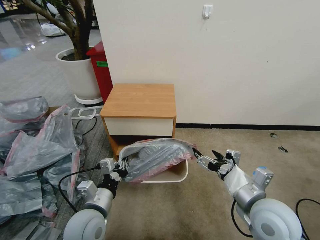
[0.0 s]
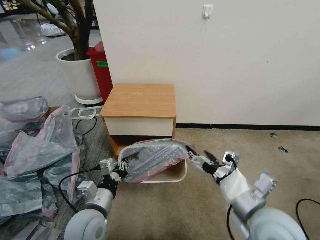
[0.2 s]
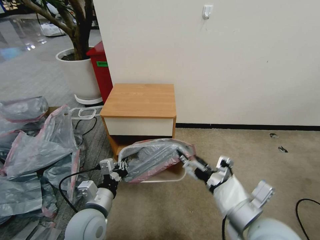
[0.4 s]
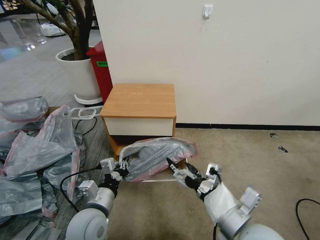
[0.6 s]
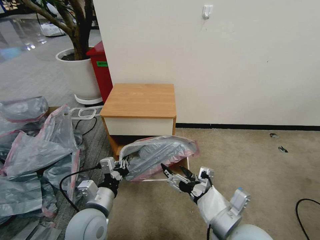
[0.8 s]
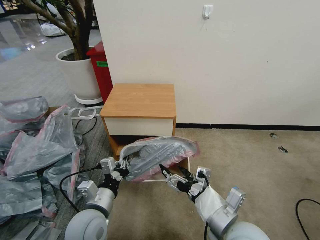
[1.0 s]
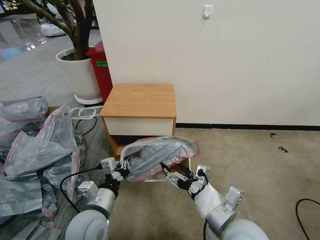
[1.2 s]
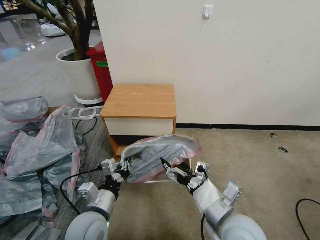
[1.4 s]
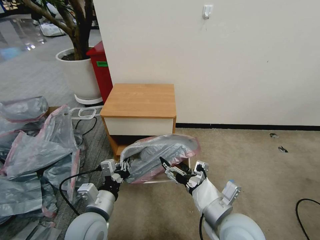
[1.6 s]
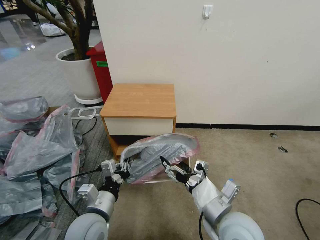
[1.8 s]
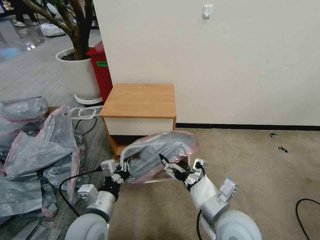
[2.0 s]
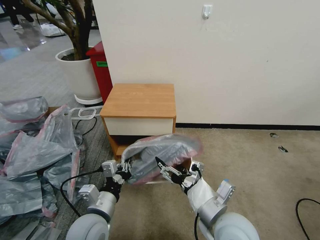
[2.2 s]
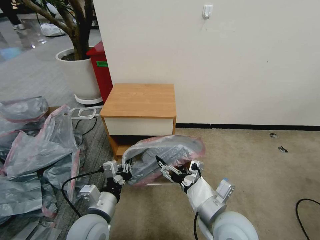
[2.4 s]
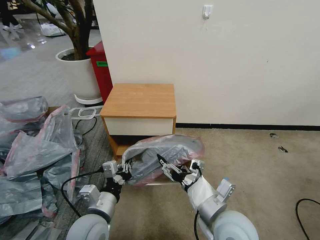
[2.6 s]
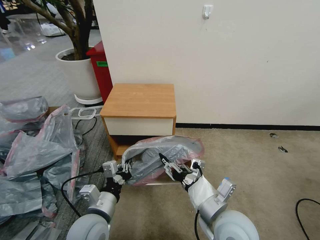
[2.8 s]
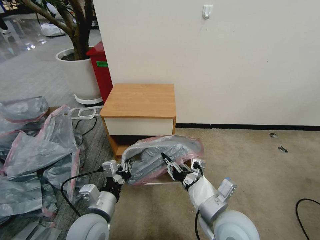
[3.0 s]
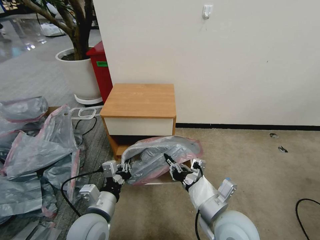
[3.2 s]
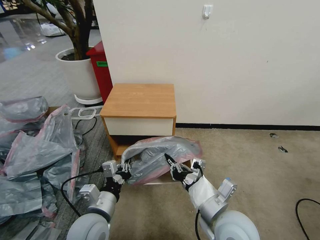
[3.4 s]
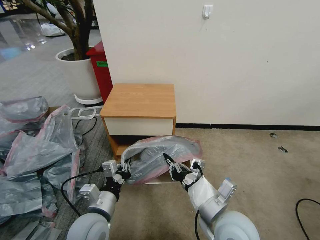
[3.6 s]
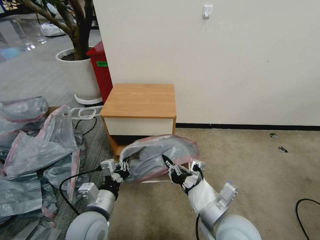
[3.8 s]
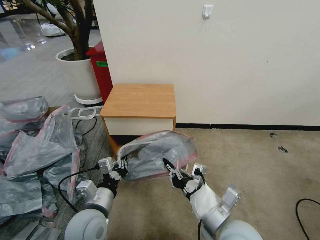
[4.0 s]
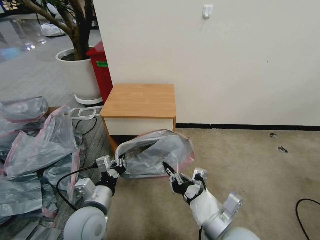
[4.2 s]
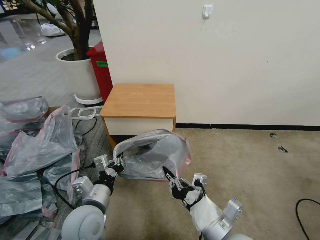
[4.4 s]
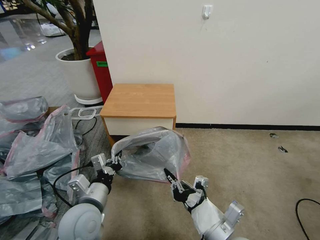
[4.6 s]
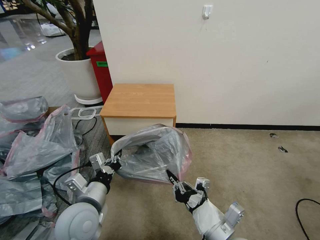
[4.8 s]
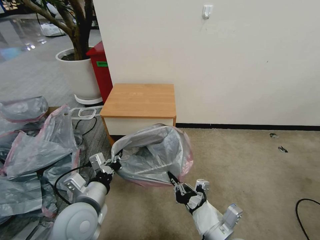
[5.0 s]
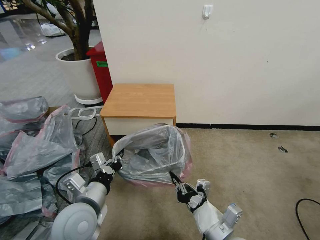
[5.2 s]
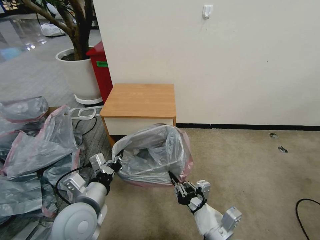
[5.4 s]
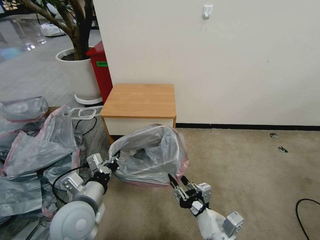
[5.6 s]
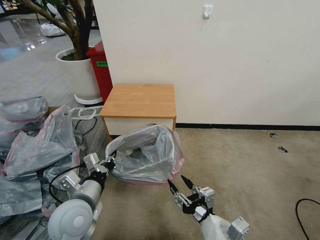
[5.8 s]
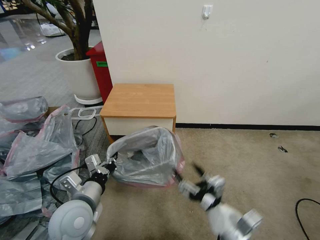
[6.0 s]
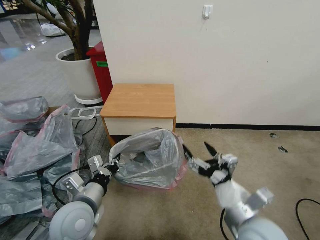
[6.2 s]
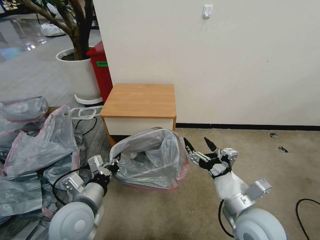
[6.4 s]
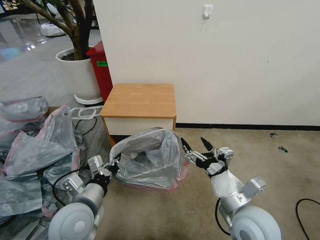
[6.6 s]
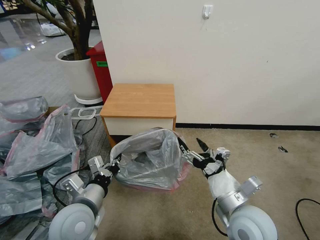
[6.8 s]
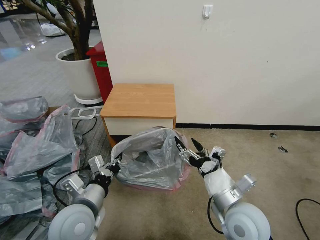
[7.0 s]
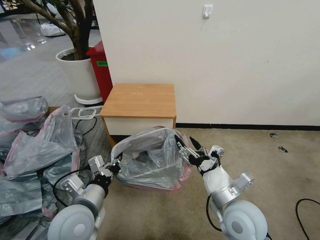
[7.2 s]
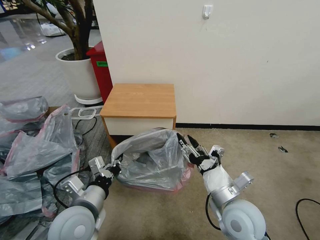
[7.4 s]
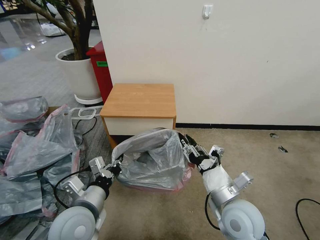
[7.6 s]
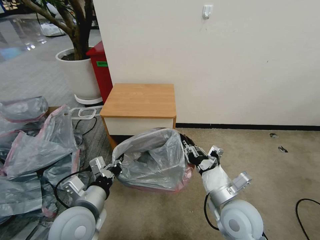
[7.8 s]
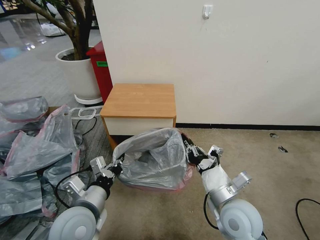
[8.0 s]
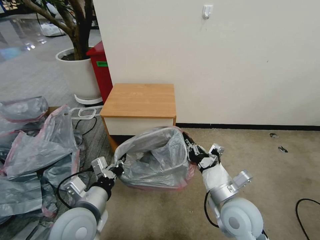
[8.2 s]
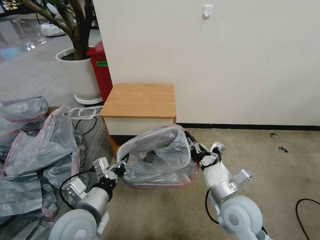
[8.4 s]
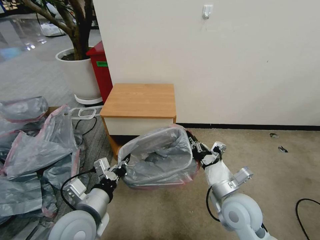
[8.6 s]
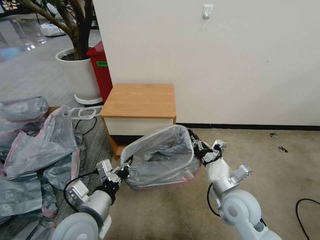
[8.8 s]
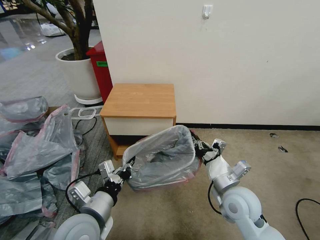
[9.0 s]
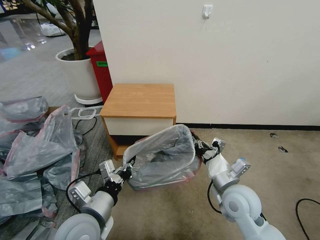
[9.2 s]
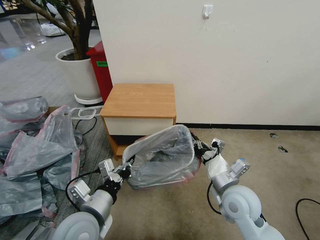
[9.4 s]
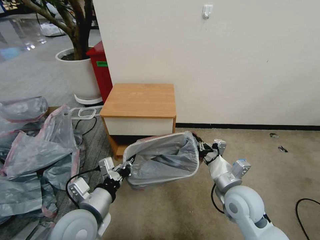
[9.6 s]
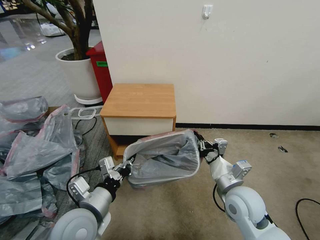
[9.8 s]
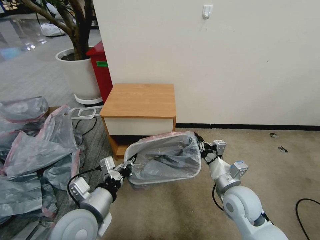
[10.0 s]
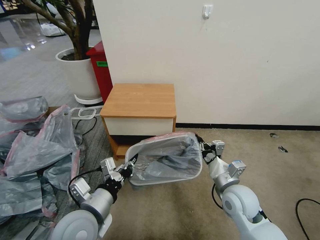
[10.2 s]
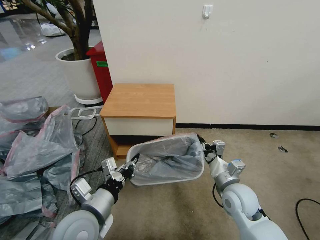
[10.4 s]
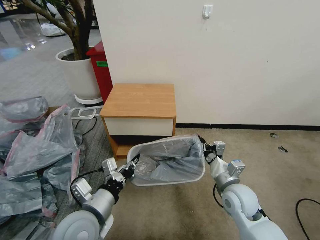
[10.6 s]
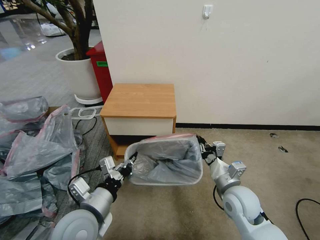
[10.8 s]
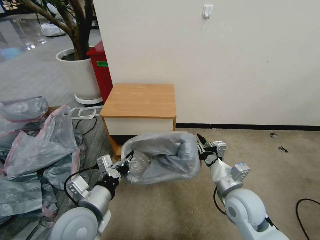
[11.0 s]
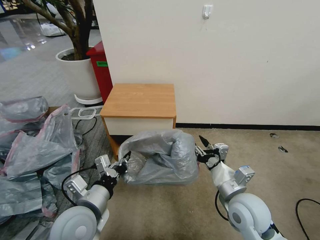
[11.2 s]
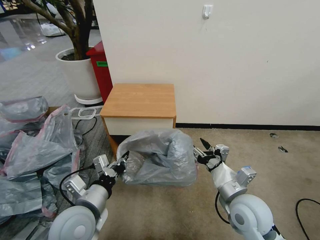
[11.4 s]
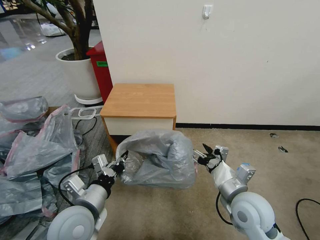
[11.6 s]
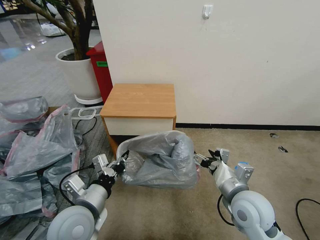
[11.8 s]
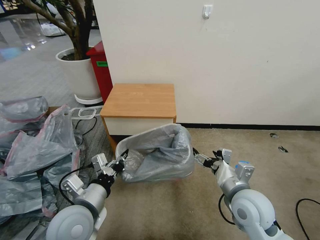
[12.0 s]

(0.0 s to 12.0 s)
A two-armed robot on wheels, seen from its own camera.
Task of the whole recording: Pick up the garbage bag from the table and place it over the trash can.
0.0 s - 1.6 s: The right gripper moves to the left, roughly 10 cm.
1.6 s - 3.0 s: The right gripper closes up.
3.0 s - 4.4 s: The grippers move only a little.
4.4 s - 6.0 s: The right gripper opens its fingers.
6.0 s - 7.6 s: The right gripper moves forward, roughly 10 cm, and closes.
7.6 s - 9.0 s: The right gripper closes its fingers.
9.0 s - 10.4 s: There are only small adjustments of the grippers.
10.4 s - 12.0 s: The right gripper is displaced upward by roughly 5 cm, and opens.

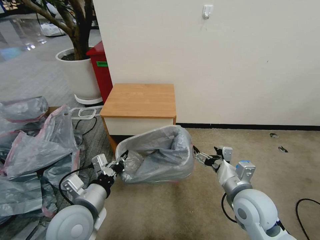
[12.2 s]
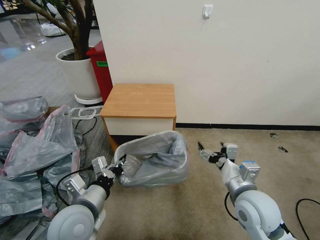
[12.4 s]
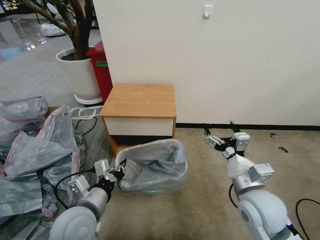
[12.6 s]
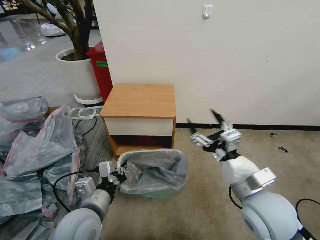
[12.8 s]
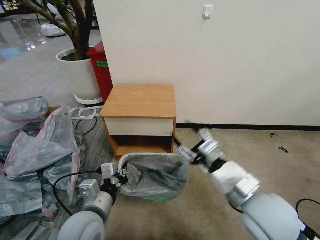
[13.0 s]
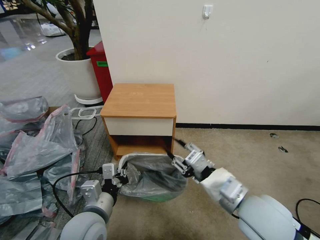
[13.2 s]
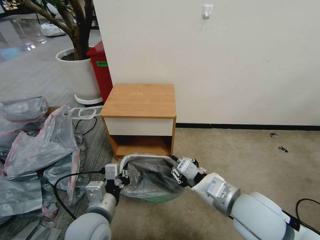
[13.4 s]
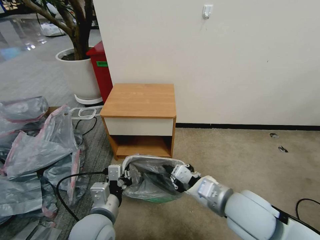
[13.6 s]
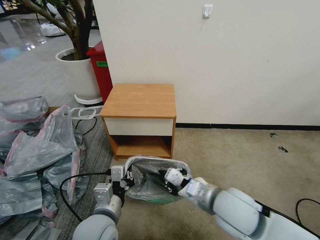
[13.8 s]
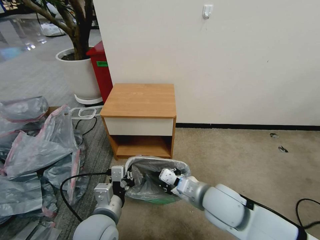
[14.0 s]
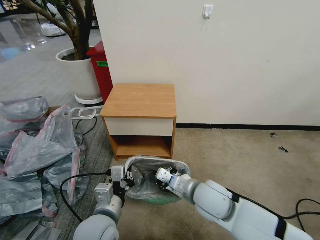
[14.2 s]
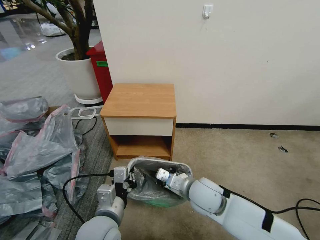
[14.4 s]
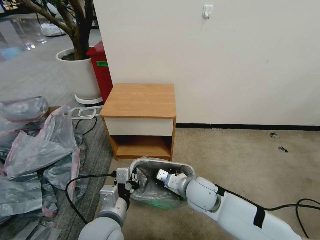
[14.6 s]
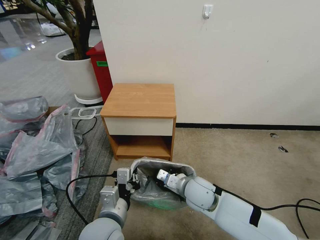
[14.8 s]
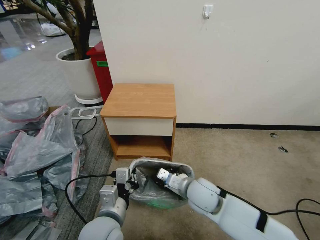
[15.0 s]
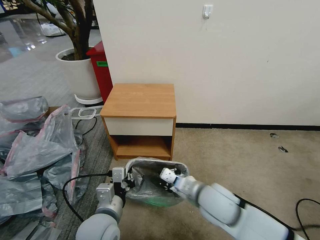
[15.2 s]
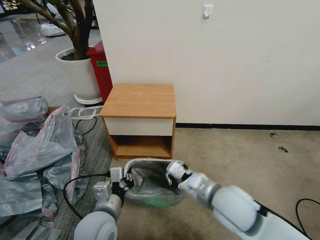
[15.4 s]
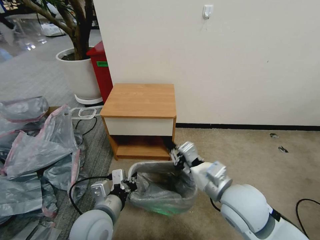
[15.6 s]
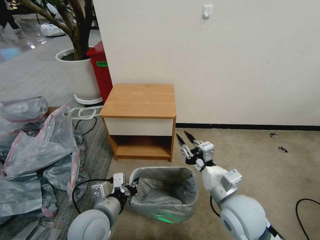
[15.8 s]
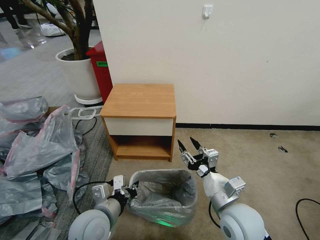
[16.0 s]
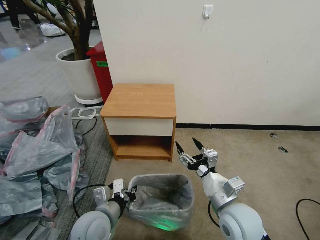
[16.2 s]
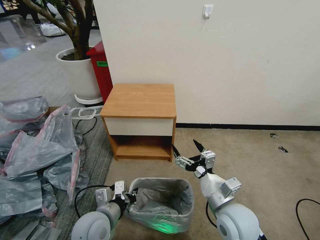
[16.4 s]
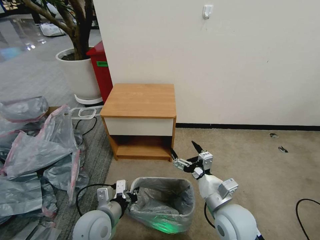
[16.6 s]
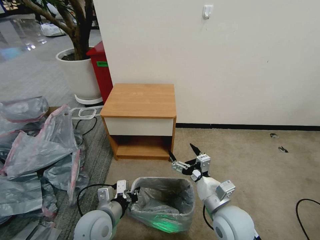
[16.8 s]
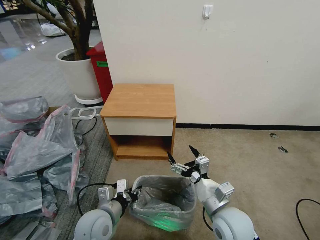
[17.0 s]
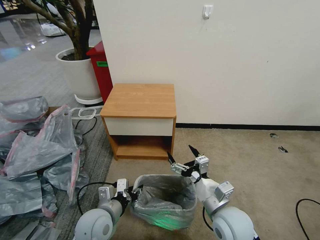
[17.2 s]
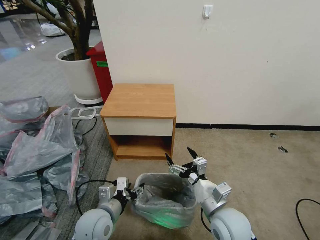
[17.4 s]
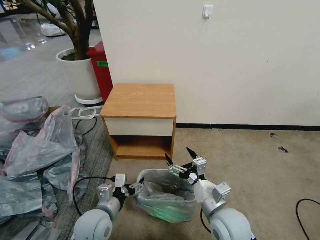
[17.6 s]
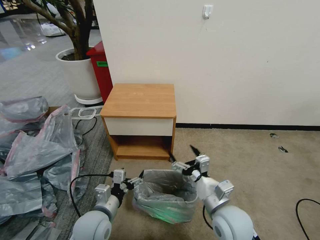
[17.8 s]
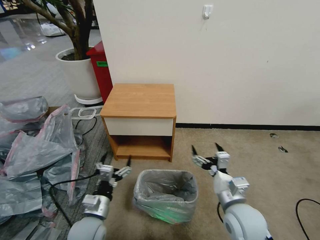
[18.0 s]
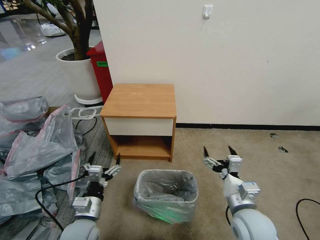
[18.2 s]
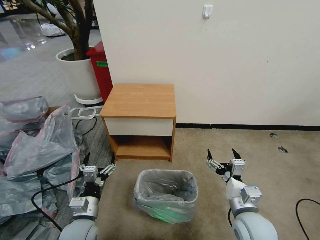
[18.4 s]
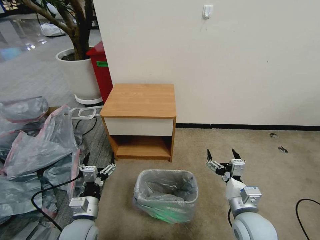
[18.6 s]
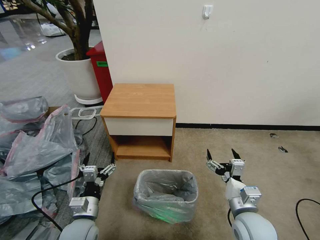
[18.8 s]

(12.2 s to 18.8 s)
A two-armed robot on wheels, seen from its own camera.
Task of the whole recording: Pick up the garbage bag from the table and place it over the trash can.
12.2 s - 13.8 s: The right gripper travels to the left by about 5 cm, and closes its fingers. Meanwhile the left gripper heads to the right, covering approximately 5 cm.
13.8 s - 15.4 s: The right gripper reaches some 10 cm downward, then returns.
15.4 s - 17.2 s: Both grippers travel together downward, roughly 5 cm. The right gripper opens, while the left gripper opens up.
17.2 s - 18.8 s: The right gripper is displaced to the right by some 5 cm. The left gripper ends up approximately 5 cm from where it was, and opens.
